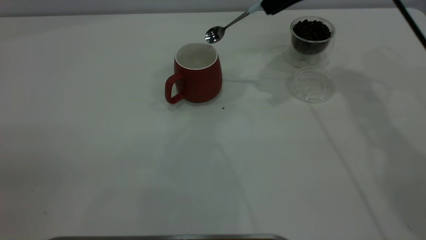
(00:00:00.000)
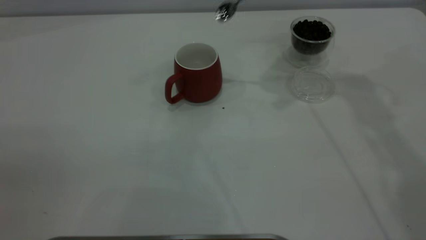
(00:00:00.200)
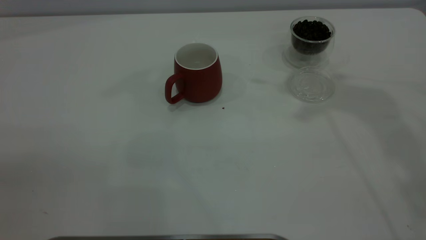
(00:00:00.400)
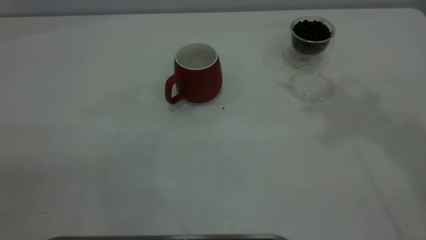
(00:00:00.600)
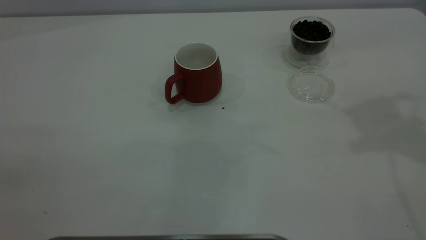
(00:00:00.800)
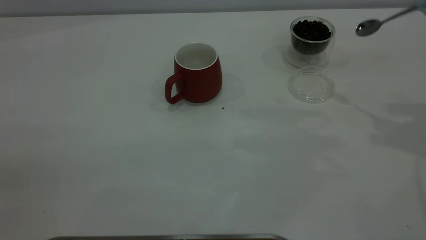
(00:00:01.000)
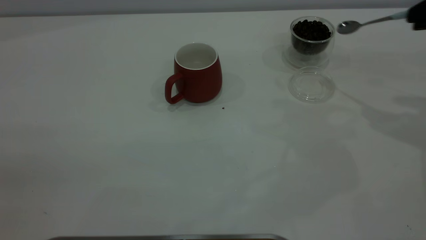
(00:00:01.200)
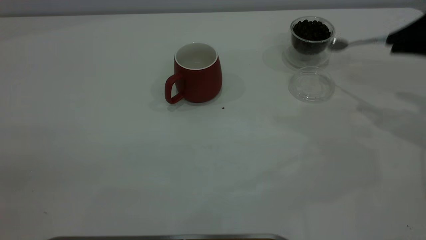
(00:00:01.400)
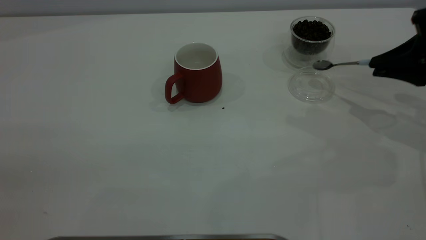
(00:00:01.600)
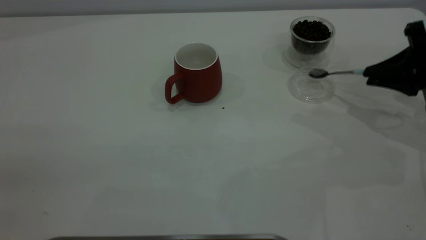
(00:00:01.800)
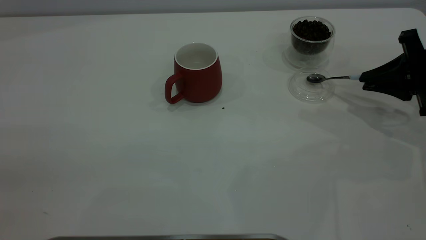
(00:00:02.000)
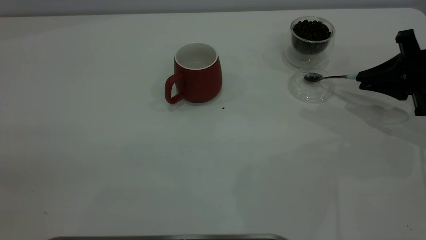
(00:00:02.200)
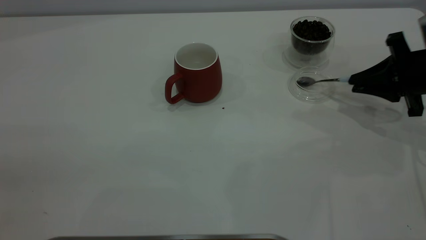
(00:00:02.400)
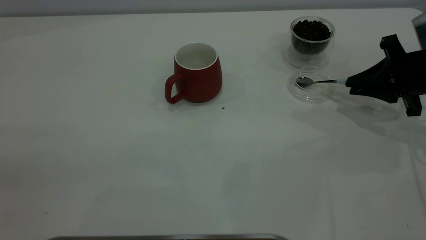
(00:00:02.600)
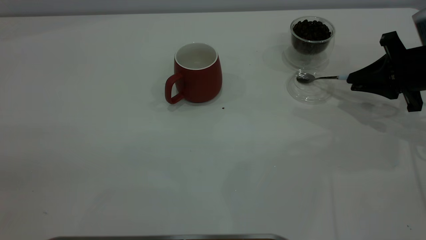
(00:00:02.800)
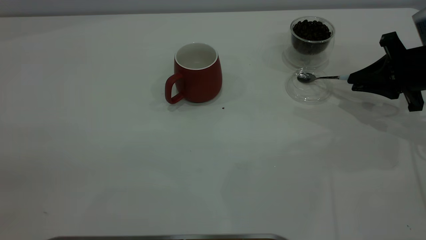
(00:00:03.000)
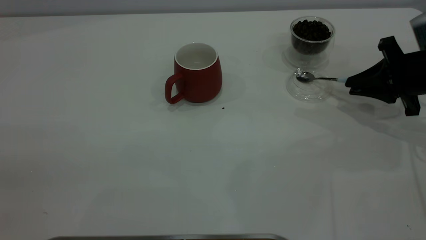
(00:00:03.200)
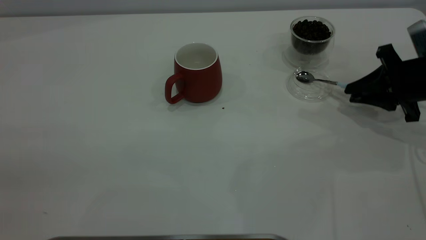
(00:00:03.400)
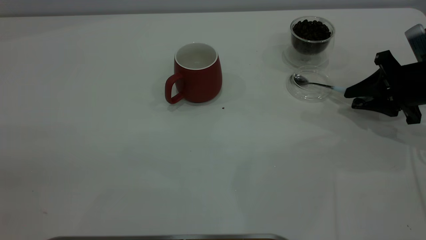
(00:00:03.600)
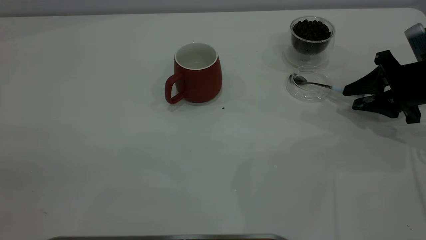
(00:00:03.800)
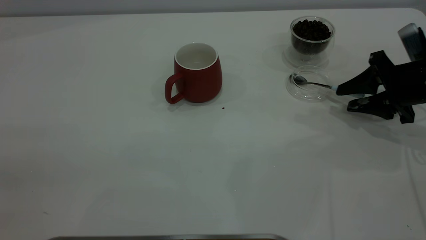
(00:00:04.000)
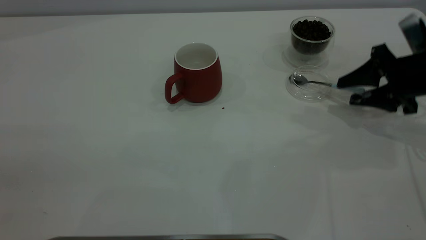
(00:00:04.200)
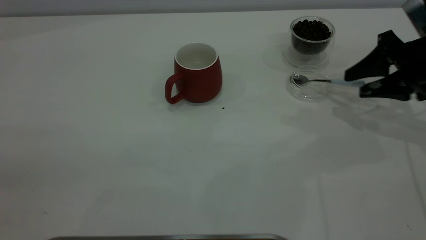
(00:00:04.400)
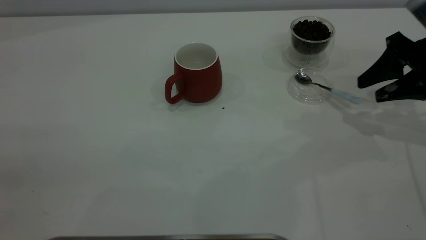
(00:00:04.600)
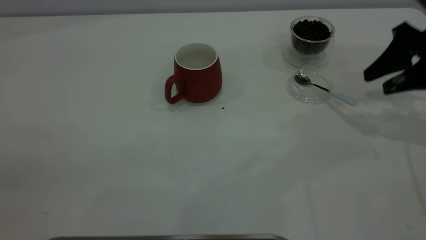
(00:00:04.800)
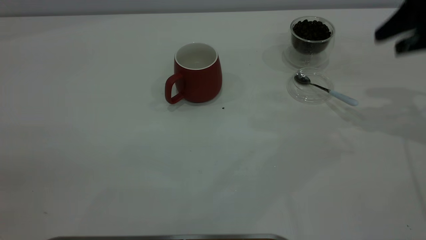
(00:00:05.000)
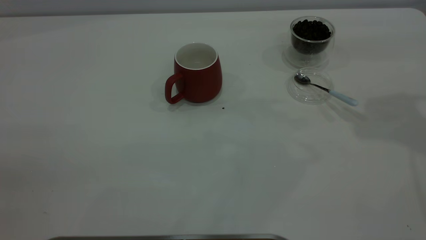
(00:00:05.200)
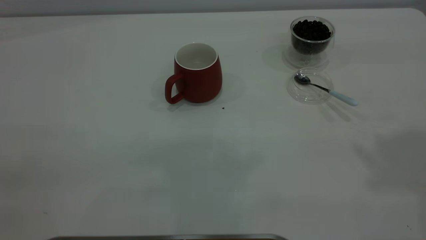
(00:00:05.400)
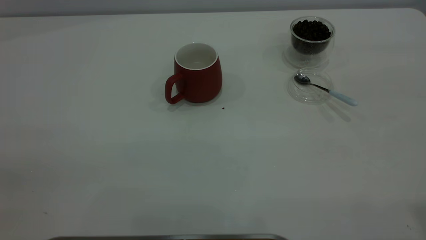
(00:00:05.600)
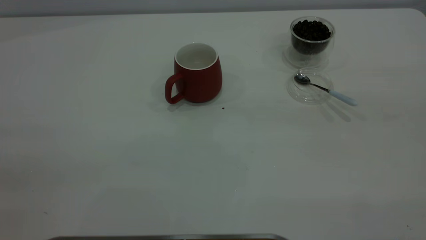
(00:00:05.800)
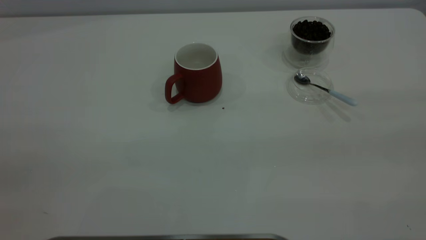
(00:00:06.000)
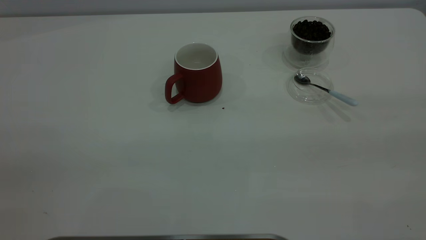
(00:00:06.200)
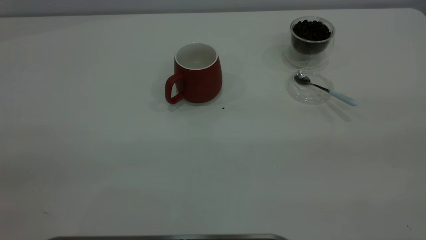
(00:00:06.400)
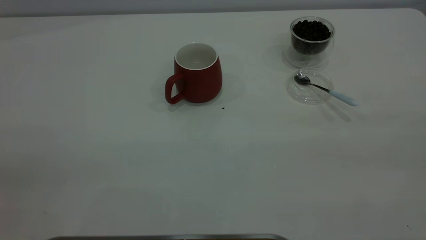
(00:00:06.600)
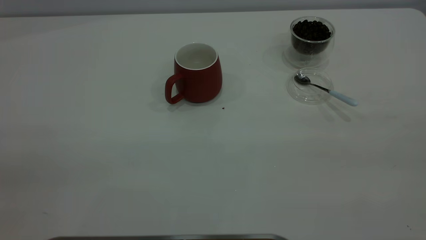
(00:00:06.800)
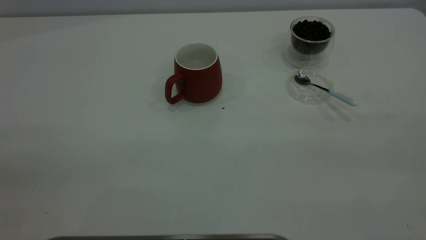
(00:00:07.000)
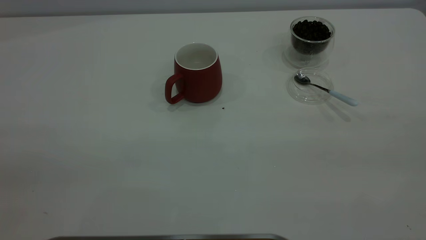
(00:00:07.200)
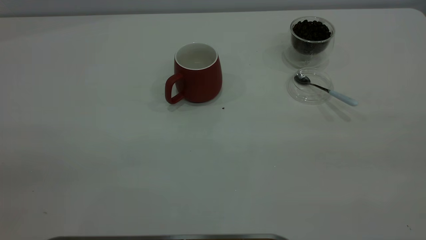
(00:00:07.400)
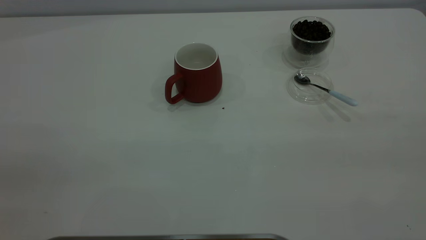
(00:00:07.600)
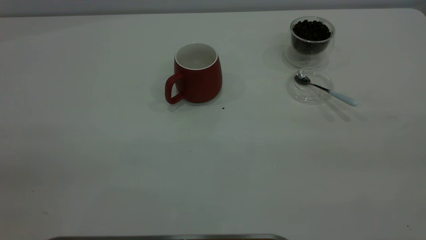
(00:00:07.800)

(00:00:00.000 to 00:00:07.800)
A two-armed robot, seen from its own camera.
Task of the whole recording: the left gripper place the red cup in the center of the table, the right gripper take the blue spoon from the cup lid and scoop out the coffee beans from the coffee cup and put them into the red cup, the right gripper put the spoon back into the cup lid.
Step, 00:00:00.000 - 00:00:04.600: Place the spoon back in its original place.
00:00:00.000 - 00:00:01.600: The right gripper heads to the right, backward and downward, covering about 25 cm.
00:00:01.600 - 00:00:03.200: The right gripper is displaced downward by approximately 5 cm.
00:00:03.200 - 00:00:04.600: The right gripper travels upward by about 5 cm, and opens its fingers.
00:00:04.600 - 00:00:06.200: The right gripper shifts approximately 35 cm backward and upward.
